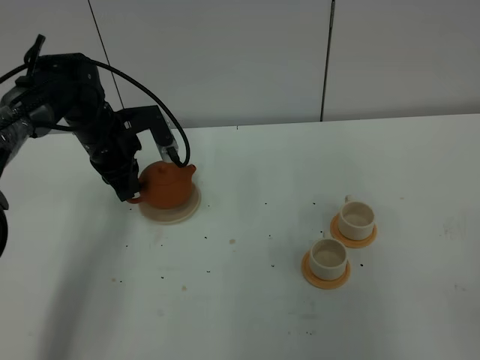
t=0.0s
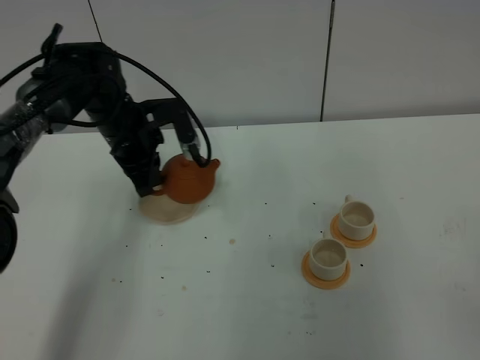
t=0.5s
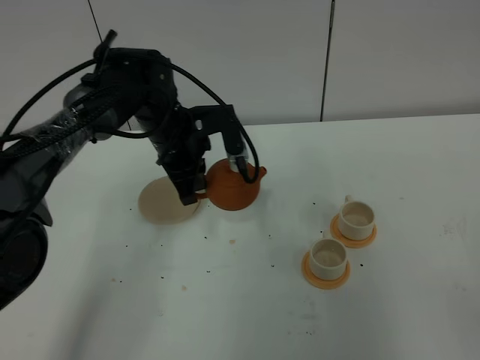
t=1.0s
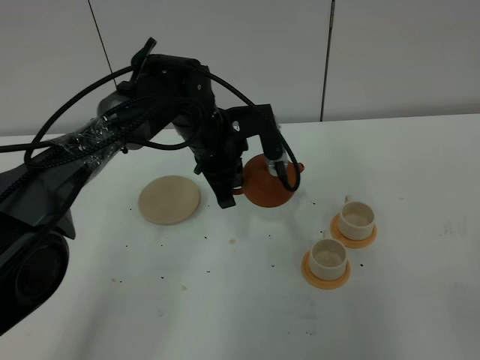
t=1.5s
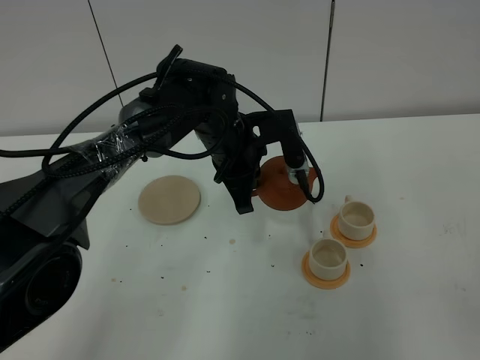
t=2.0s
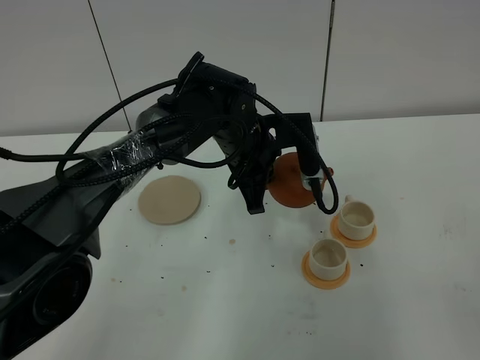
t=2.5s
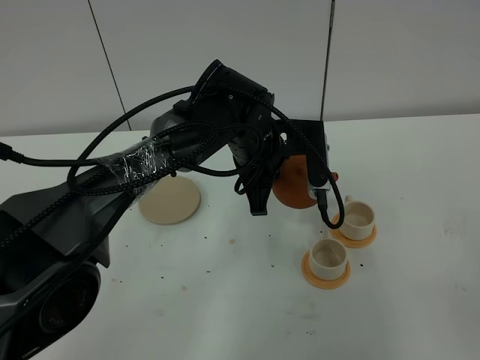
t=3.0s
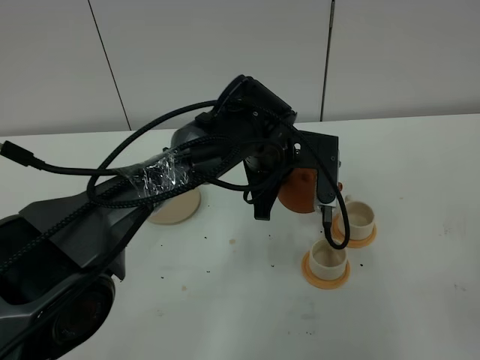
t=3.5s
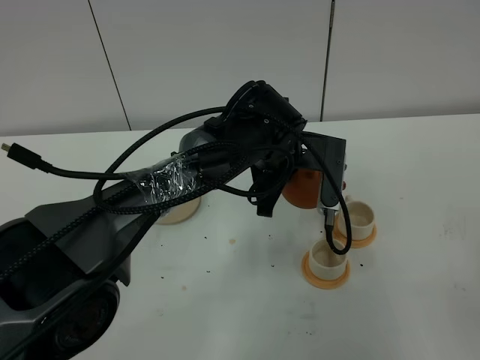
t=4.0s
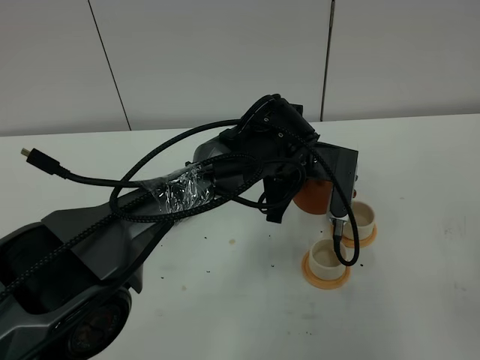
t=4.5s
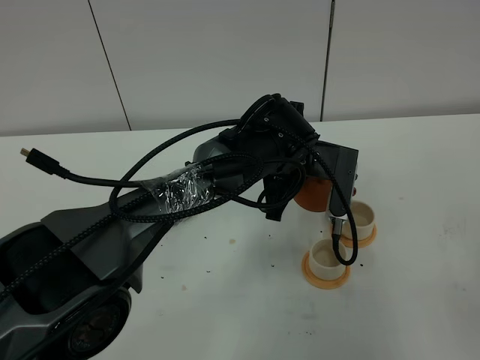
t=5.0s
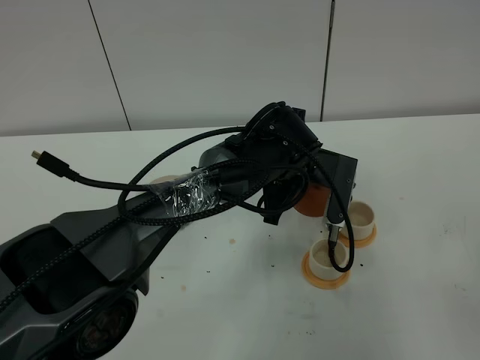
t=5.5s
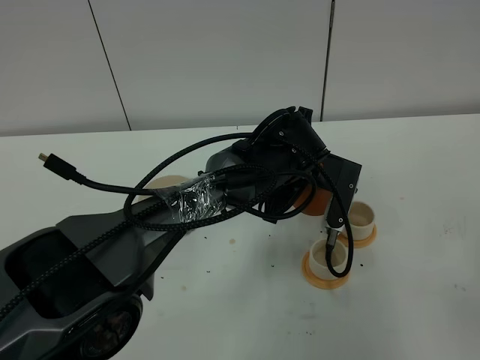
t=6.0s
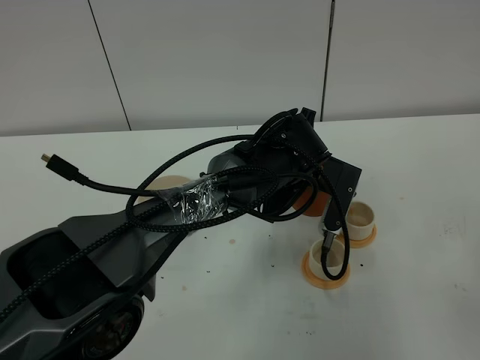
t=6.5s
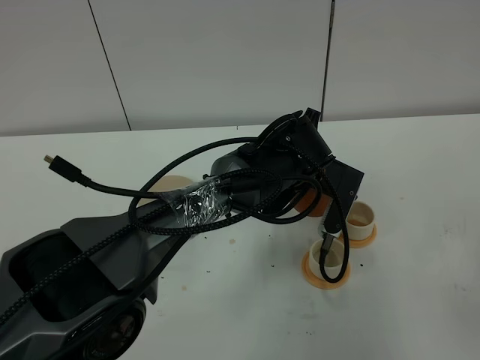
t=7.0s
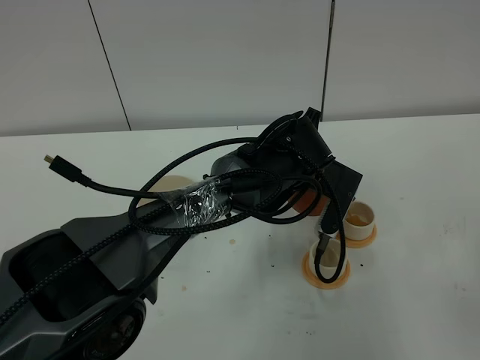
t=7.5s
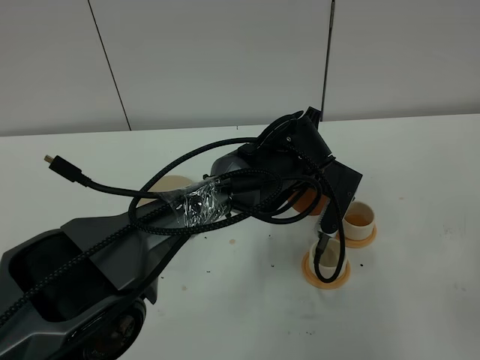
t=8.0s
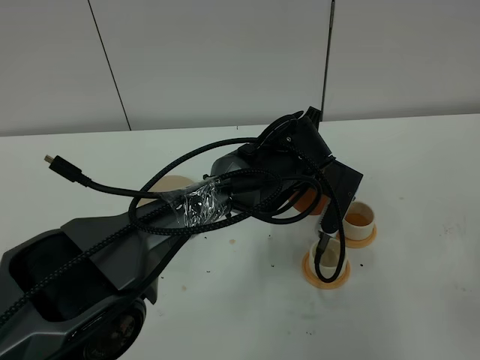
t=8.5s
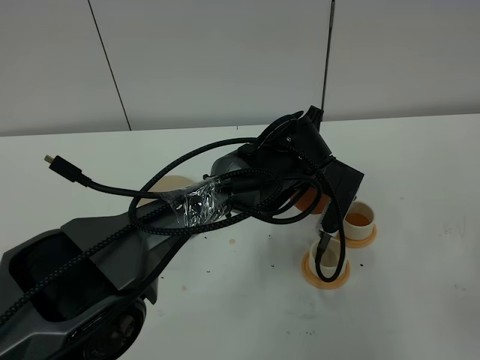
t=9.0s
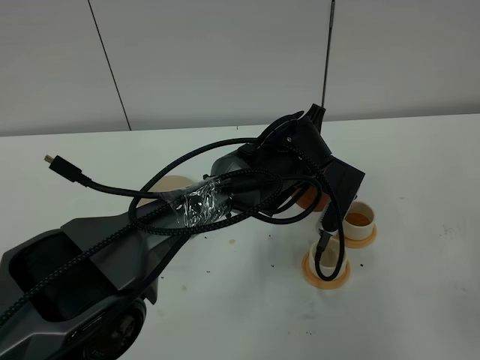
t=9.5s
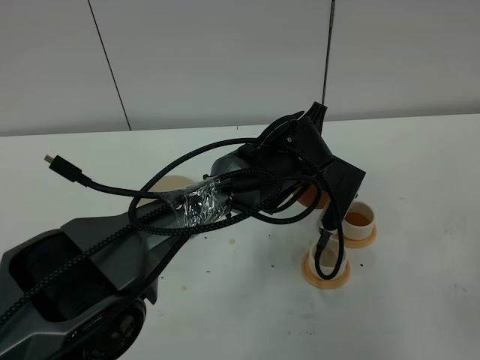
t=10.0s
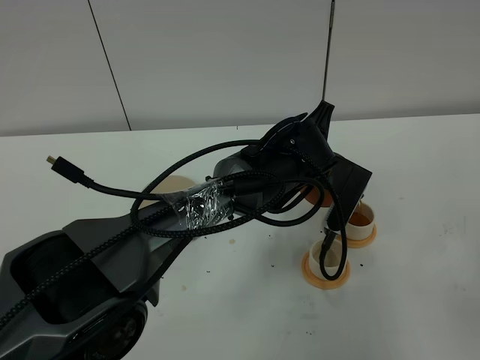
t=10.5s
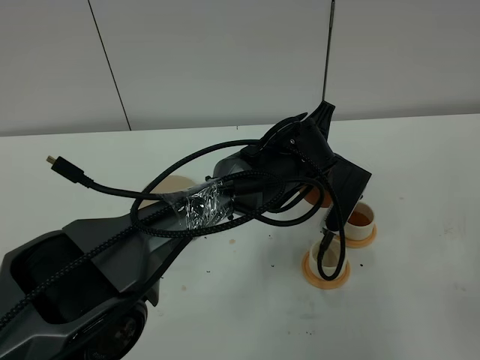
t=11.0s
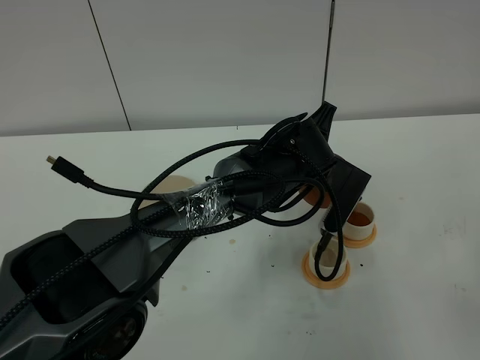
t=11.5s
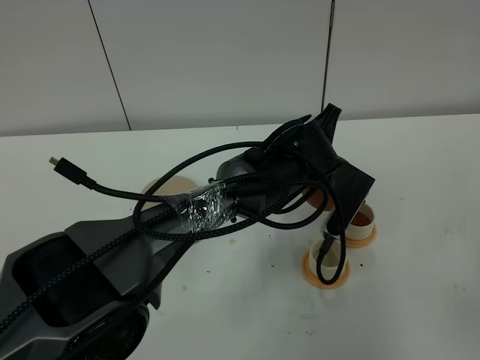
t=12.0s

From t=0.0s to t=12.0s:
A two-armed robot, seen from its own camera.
Task of the whole recording: grasp the brown teapot and pour the tea into the two white teacups one by one, put the brown teapot back in its original place.
From t=0.0s to t=2.0s: The left gripper shifts roughly 20 cm to the right.
From t=2.0s to t=4.0s: The left gripper shifts roughly 5 cm to the right.
From t=4.0s to t=8.0s: The grippers stay close to where they were, moving slightly.
From t=8.0s to t=10.0s: Both grippers stay put.
From t=10.0s to t=12.0s: The grippers move only a little.

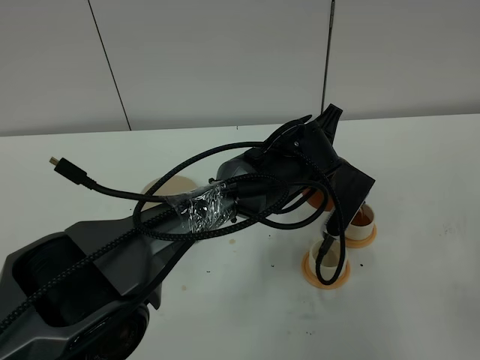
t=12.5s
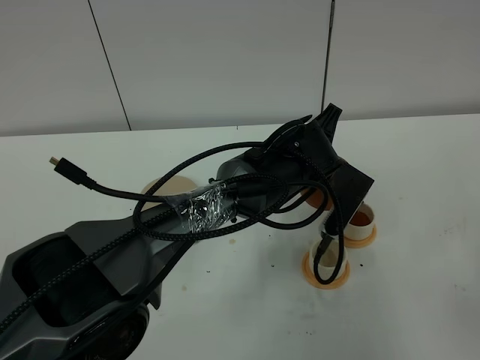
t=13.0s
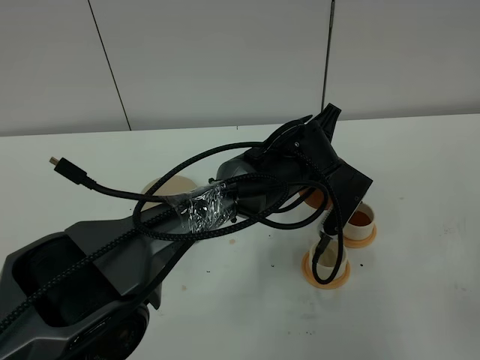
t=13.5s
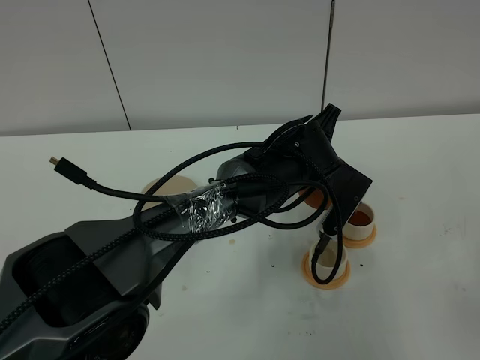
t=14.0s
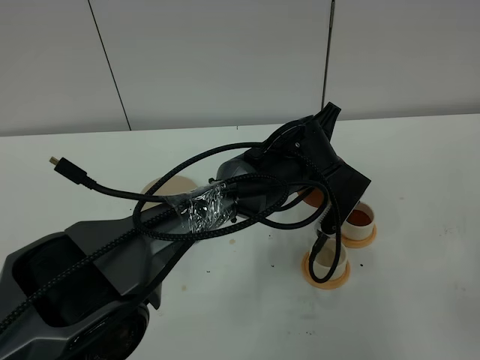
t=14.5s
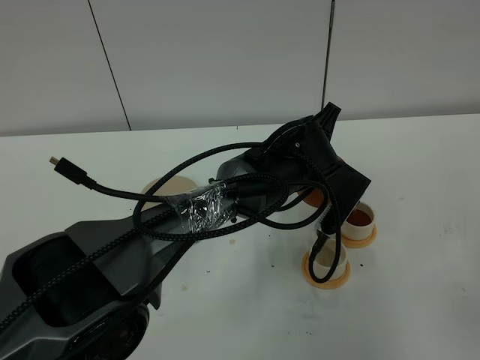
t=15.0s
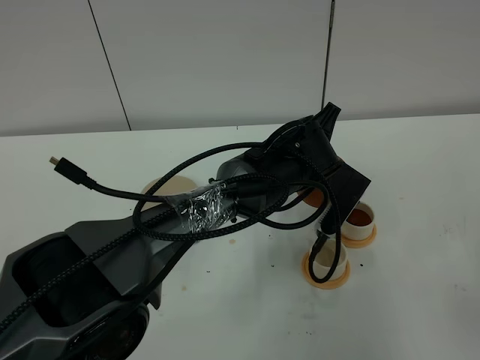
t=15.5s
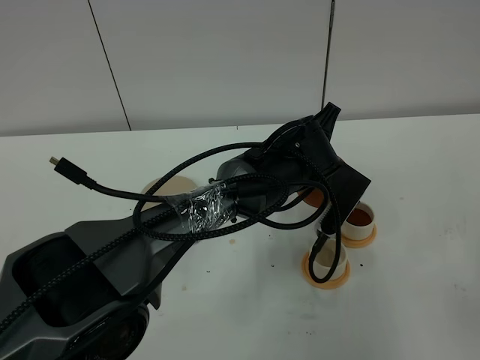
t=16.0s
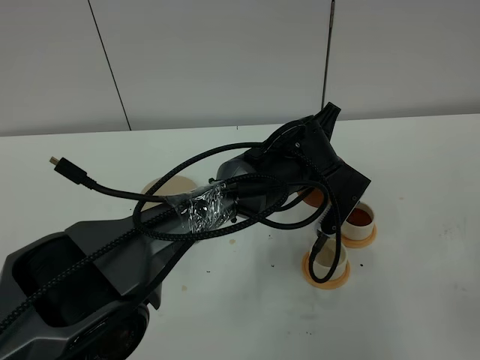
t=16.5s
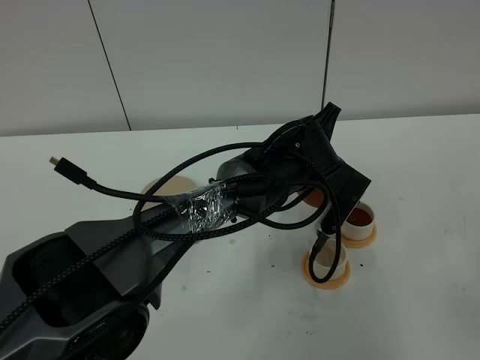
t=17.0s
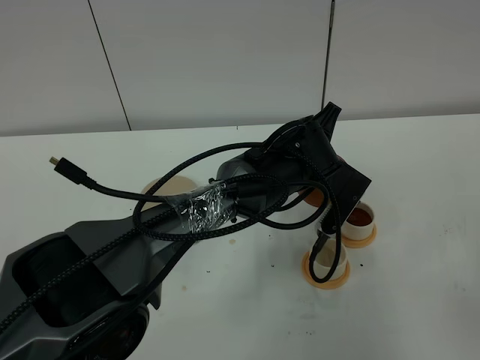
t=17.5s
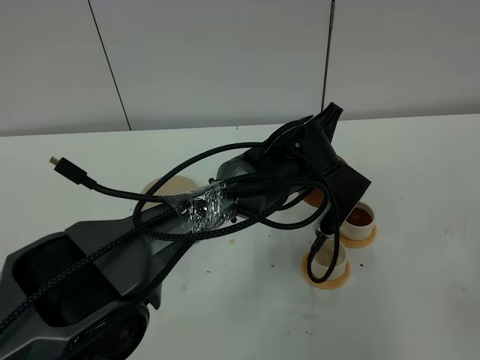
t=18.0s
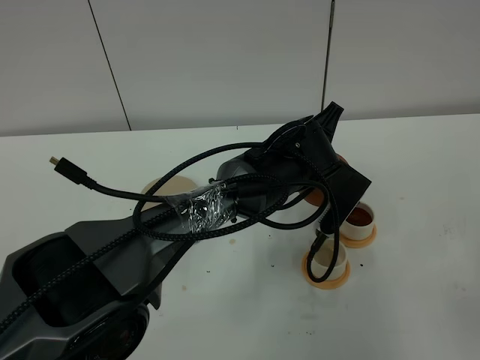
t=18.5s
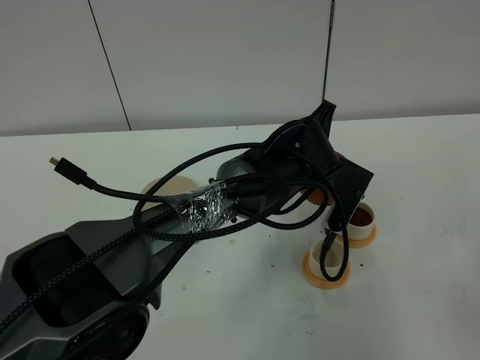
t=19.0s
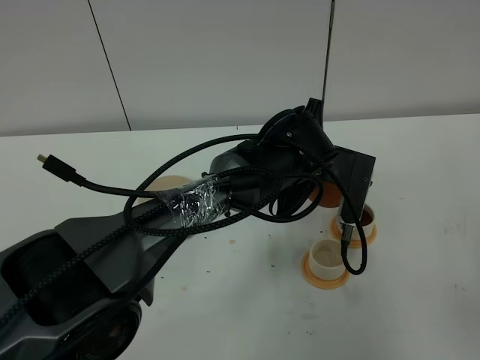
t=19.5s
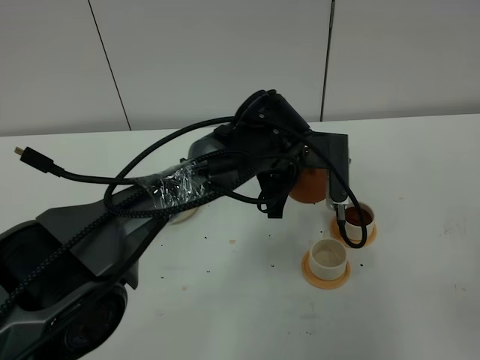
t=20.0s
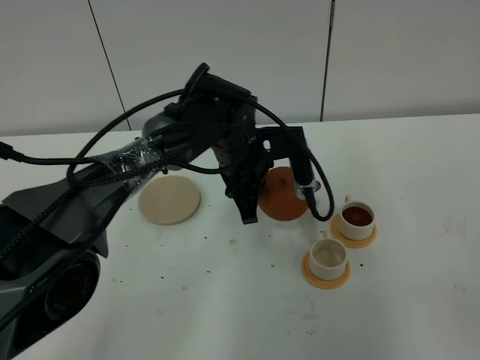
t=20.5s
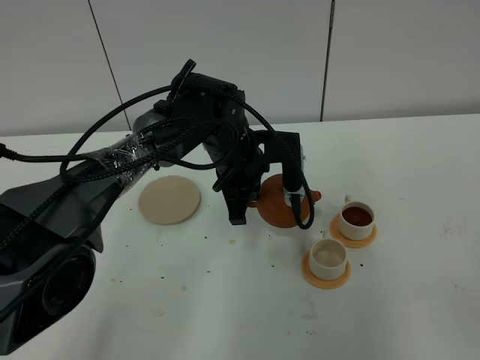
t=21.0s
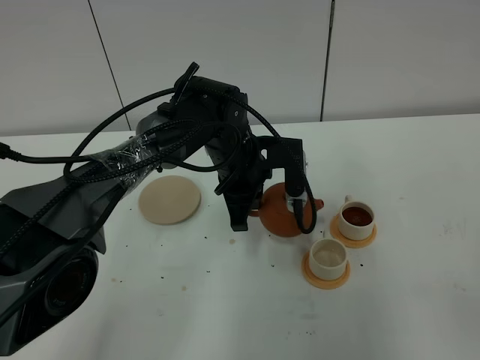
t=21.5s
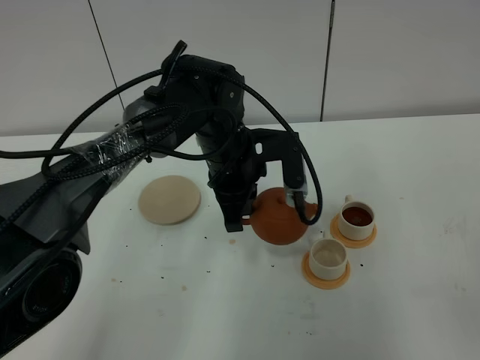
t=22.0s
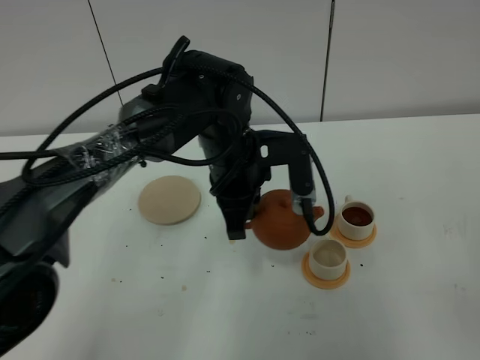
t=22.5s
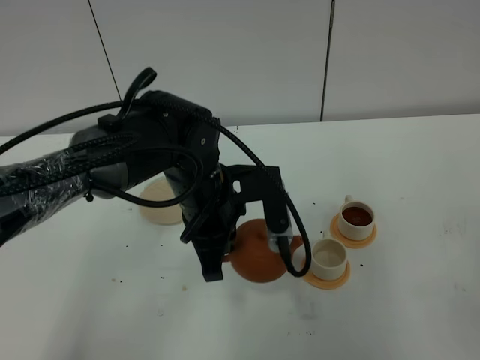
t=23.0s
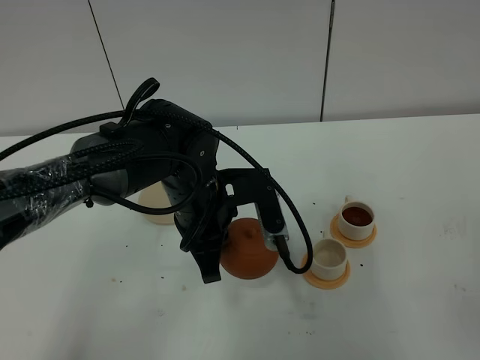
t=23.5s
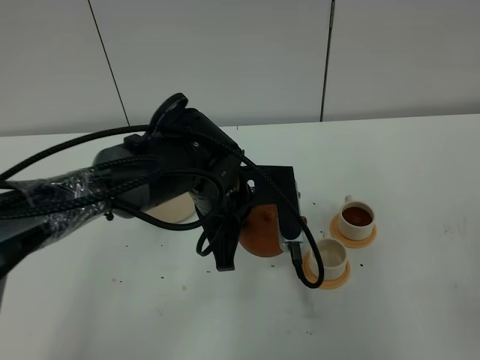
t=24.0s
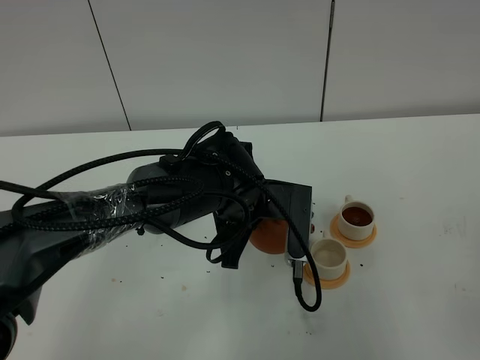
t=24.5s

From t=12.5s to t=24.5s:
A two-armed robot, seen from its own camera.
Task of the whole recording: grasp the brown teapot and pour the tea into the two white teacups one by one, put the brown teapot back in its original place.
From t=12.5s to t=18.5s: The two grippers keep their place.
From t=18.5s to t=20.5s: The left gripper moves to the left, approximately 10 cm.
From t=20.5s to t=22.5s: The left gripper heads backward, covering about 5 cm.
From t=22.5s to t=24.5s: The left gripper ends up approximately 5 cm from where it was.

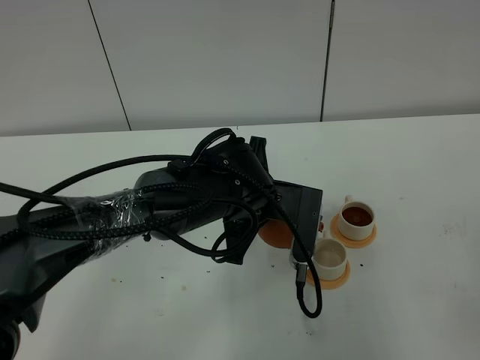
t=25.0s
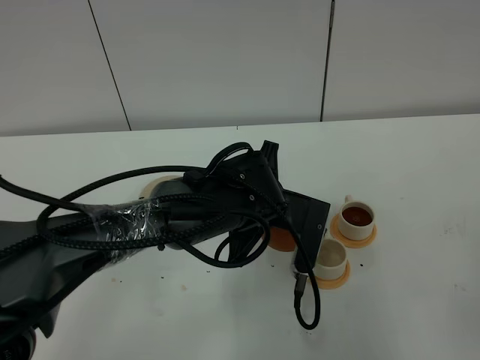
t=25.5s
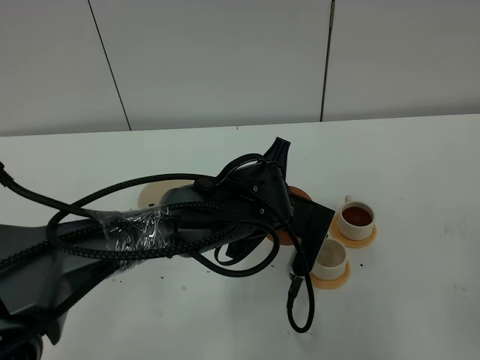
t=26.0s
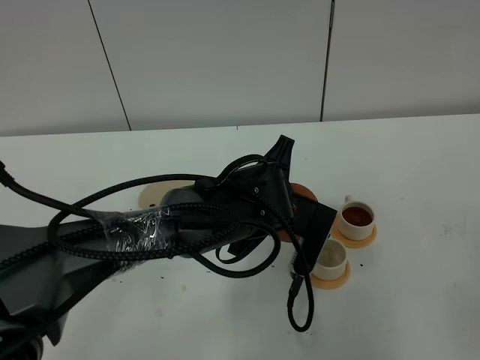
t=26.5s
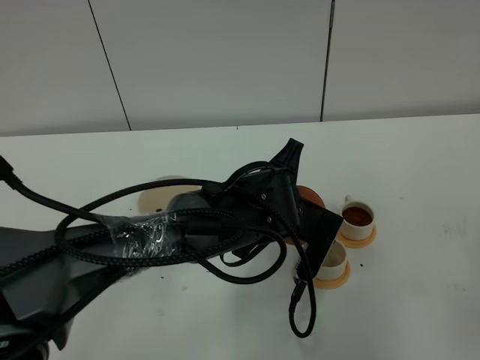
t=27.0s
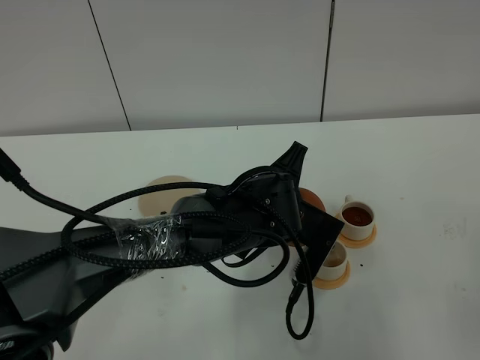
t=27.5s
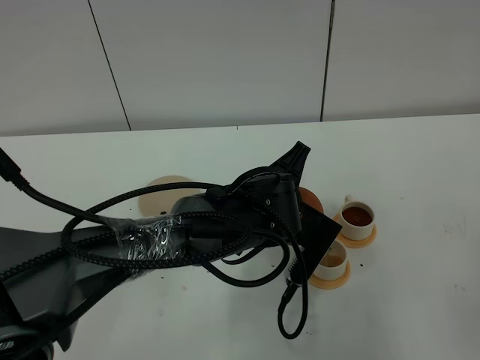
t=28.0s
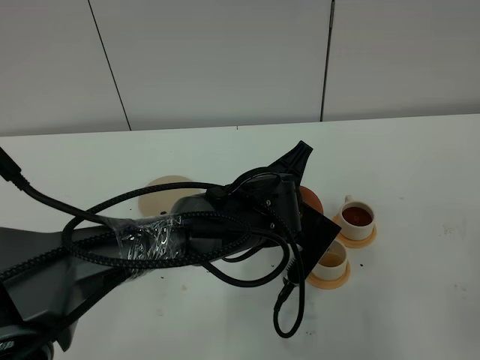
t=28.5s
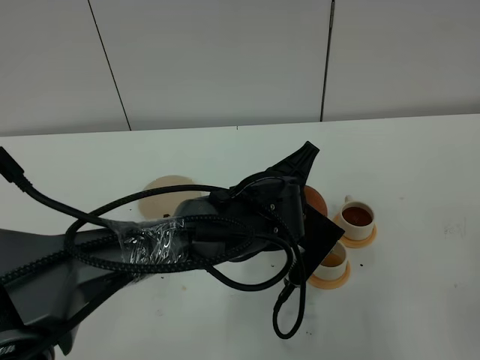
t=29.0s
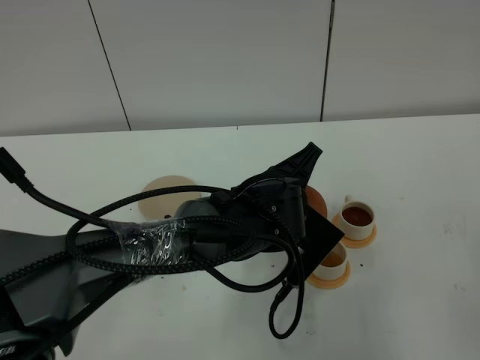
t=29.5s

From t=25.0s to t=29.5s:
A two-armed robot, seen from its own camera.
Task of the whole recording: grasp the brown teapot and pour the tea into the two white teacups one by one, put the brown teapot back in its original place.
From t=25.0s to t=27.0s: There are only small adjustments of the grippers.
From t=27.0s to t=29.5s: The grippers make only small movements.
